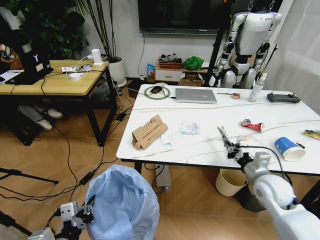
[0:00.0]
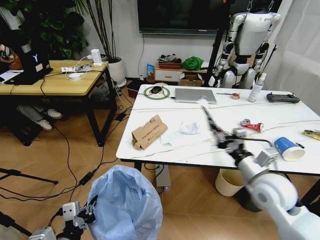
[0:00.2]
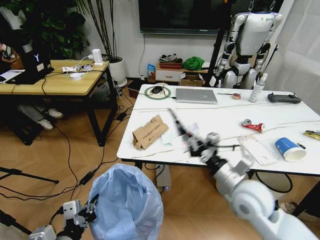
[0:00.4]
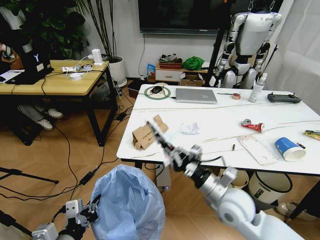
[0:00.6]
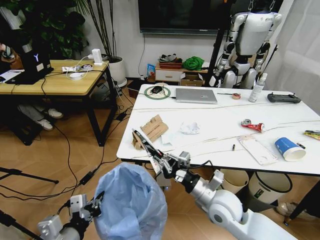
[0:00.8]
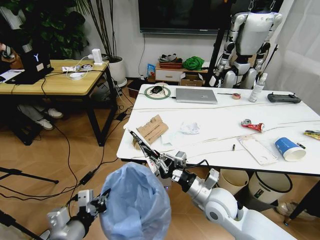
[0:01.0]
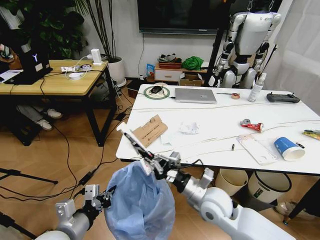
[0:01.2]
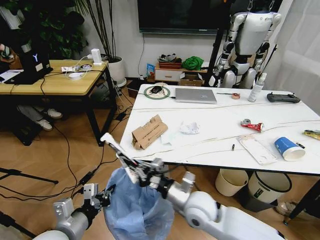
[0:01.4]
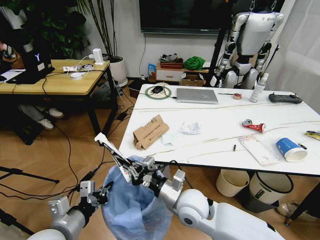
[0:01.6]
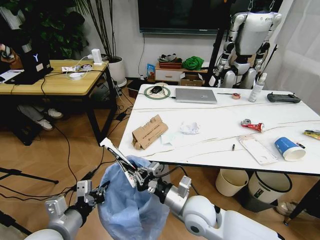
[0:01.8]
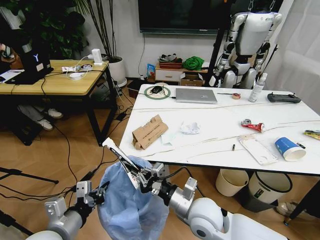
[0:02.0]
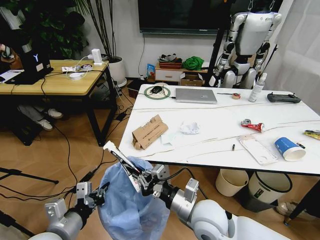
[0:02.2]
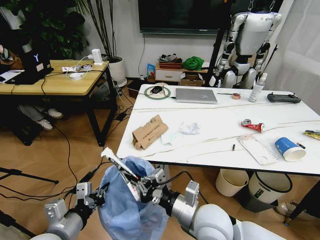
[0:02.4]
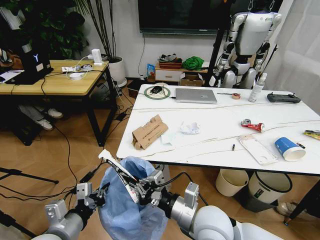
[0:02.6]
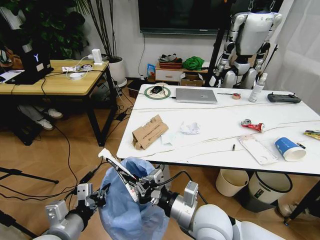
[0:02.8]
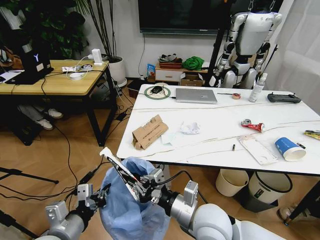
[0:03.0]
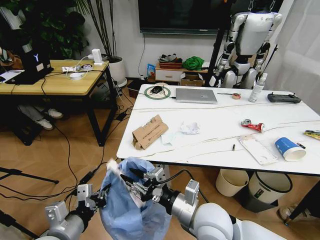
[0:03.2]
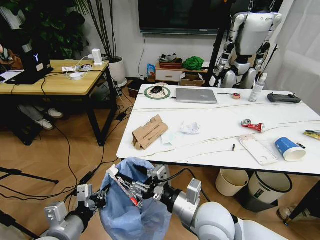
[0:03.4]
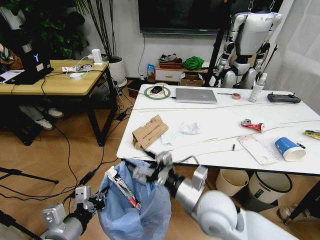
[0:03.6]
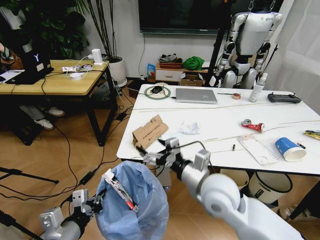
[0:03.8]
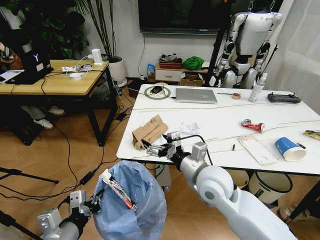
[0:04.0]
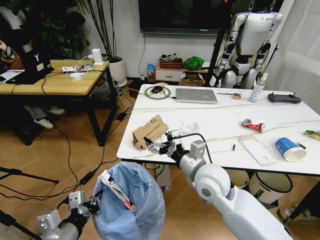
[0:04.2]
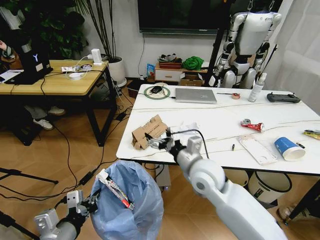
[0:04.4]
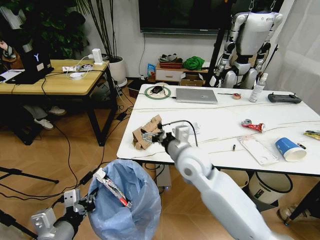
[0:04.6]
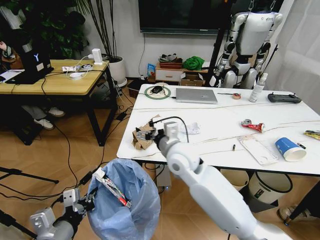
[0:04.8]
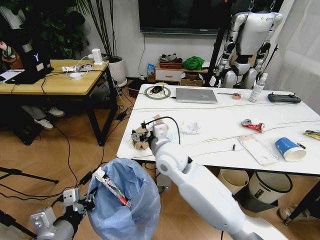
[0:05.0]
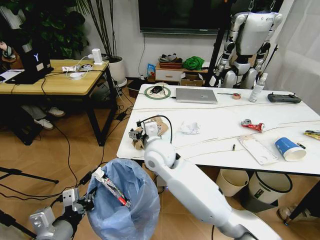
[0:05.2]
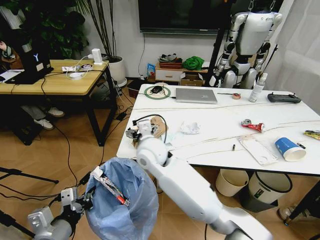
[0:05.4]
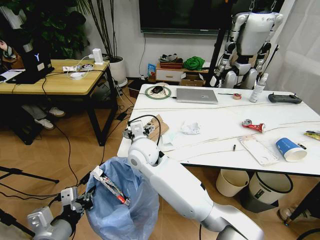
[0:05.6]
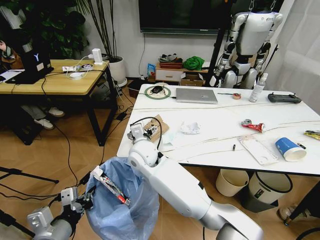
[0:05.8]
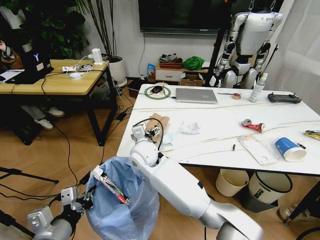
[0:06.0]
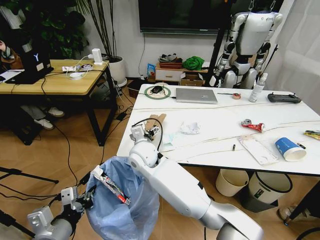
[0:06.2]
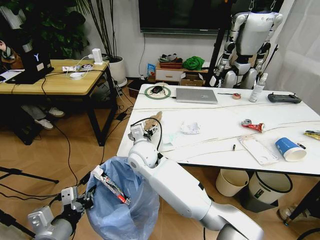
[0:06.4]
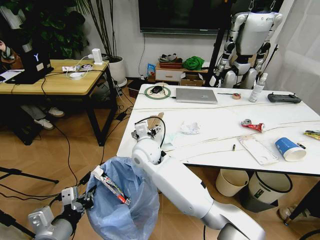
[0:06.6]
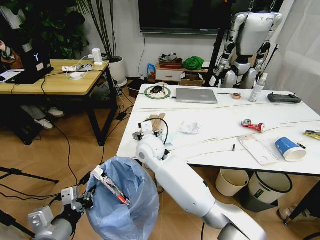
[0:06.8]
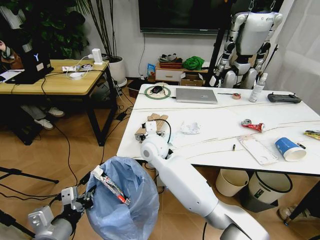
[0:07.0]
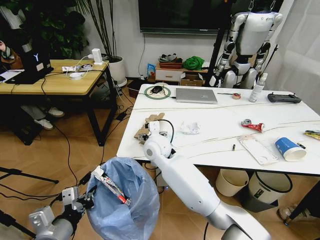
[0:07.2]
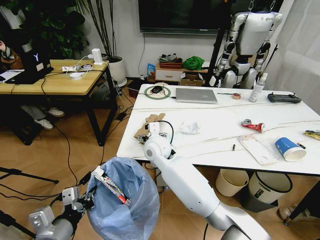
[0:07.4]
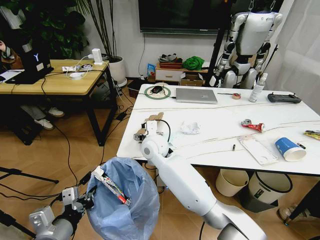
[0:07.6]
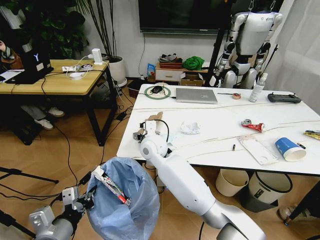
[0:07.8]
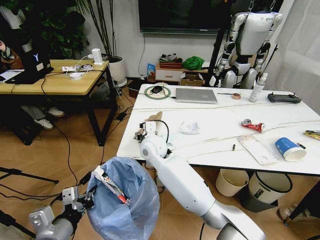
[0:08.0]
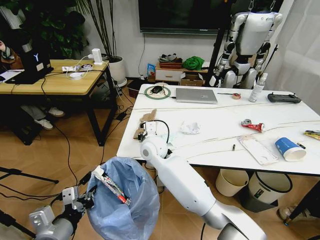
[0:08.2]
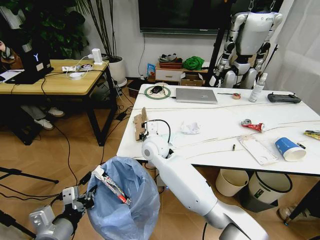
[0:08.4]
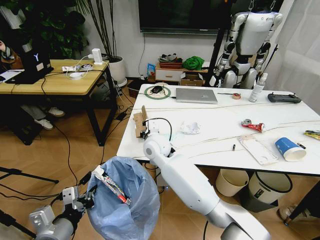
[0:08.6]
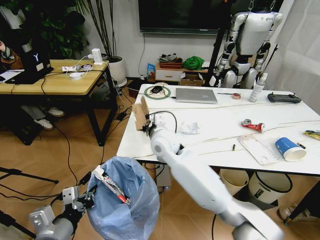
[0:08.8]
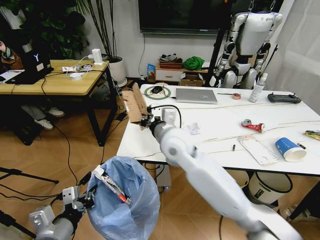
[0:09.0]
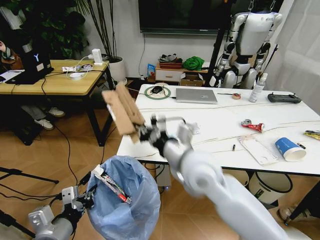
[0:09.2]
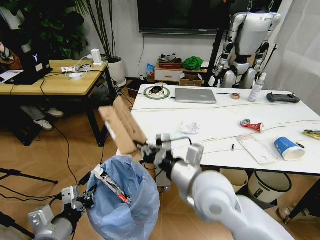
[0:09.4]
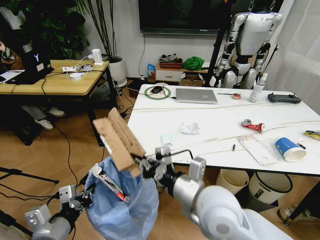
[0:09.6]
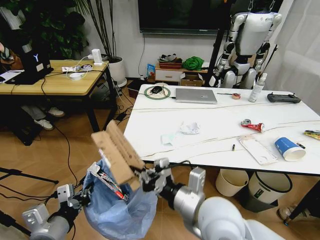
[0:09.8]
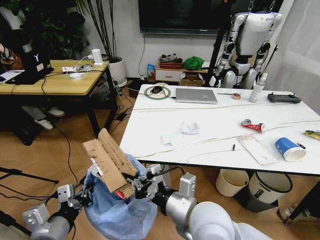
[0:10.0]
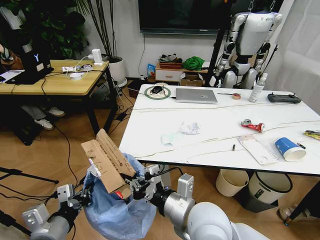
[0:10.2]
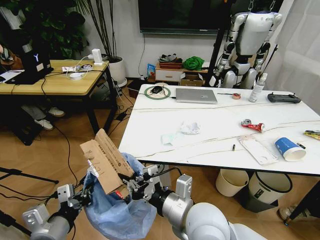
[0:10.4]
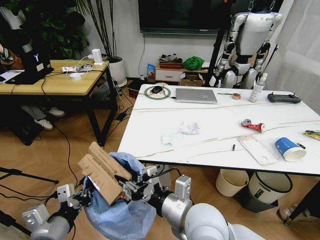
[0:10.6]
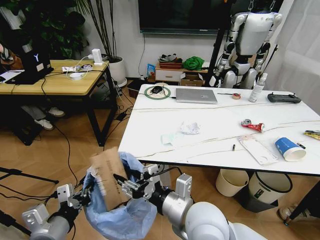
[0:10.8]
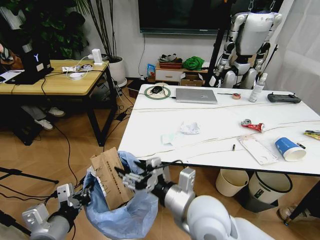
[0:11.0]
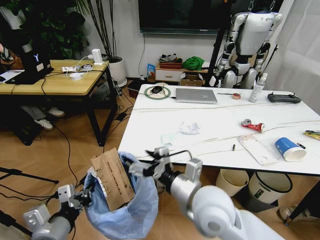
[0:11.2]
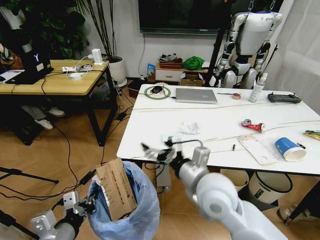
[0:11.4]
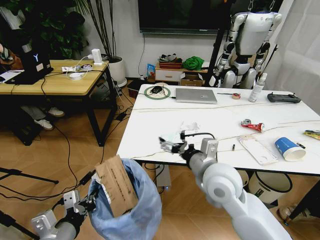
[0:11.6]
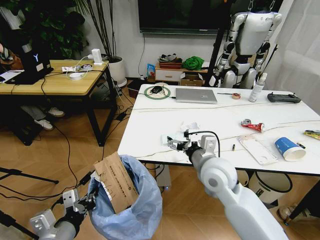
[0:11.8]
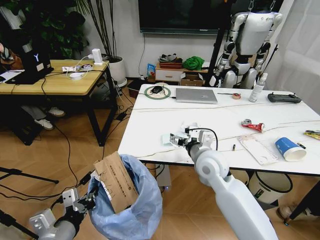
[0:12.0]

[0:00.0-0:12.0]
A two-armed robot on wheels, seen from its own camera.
Task of the whole recording: Pick up the trash bin and place the trash from the table into it.
0:00.0 to 0:01.6: The right gripper shifts roughly 25 cm to the left; the left gripper goes some 5 cm forward.
0:01.6 to 0:03.0: The right gripper is displaced backward by roughly 5 cm.
0:03.0 to 0:04.4: The right gripper heads forward, covering approximately 10 cm, and opens.
0:04.4 to 0:06.0: The right gripper is displaced to the left and forward by about 20 cm.
0:07.6 to 0:09.0: The right gripper is displaced upward, to the right and backward by approximately 15 cm, and closes.
0:09.0 to 0:10.4: The right gripper shifts roughly 20 cm backward.
0:10.4 to 0:12.0: The right gripper shifts approximately 15 cm forward, and opens.

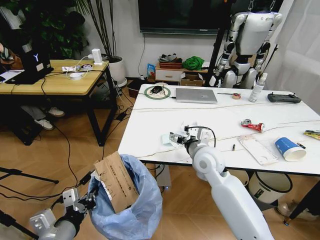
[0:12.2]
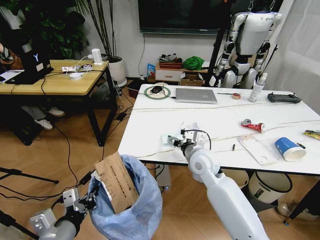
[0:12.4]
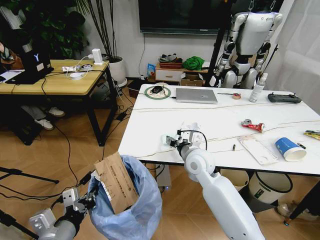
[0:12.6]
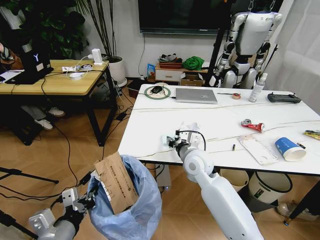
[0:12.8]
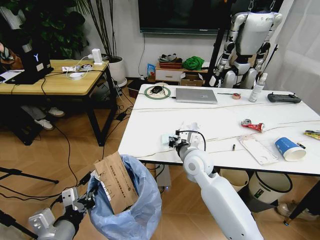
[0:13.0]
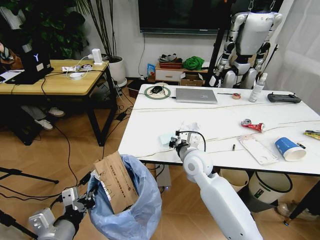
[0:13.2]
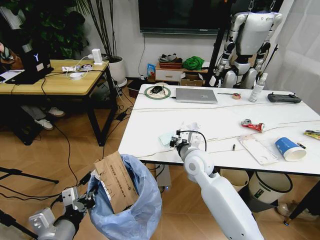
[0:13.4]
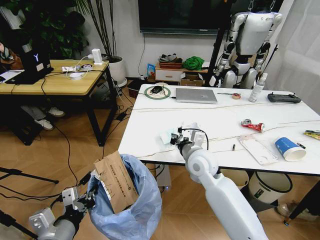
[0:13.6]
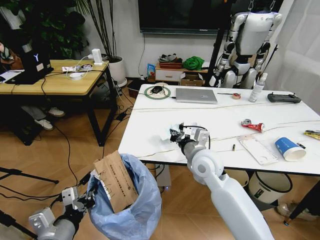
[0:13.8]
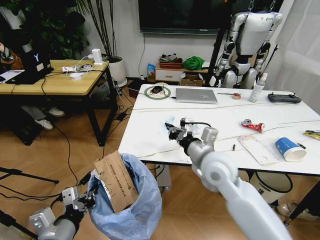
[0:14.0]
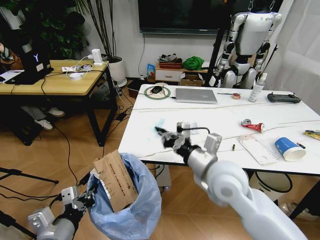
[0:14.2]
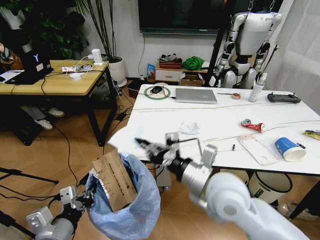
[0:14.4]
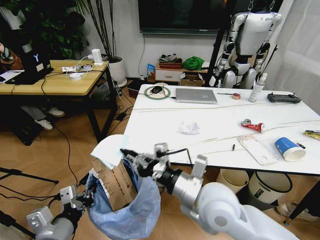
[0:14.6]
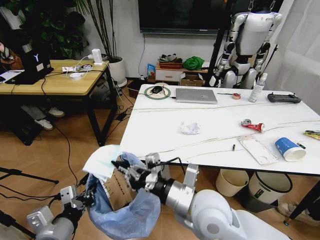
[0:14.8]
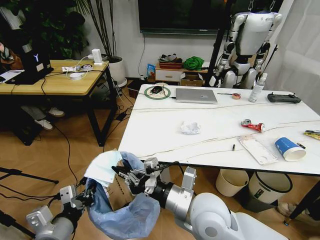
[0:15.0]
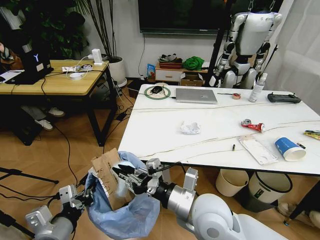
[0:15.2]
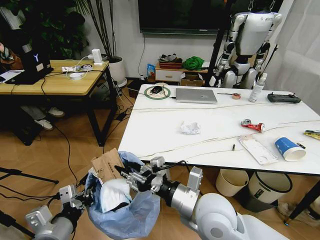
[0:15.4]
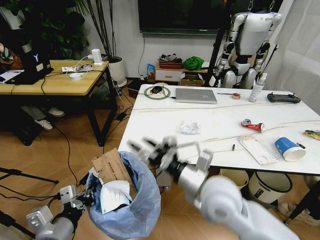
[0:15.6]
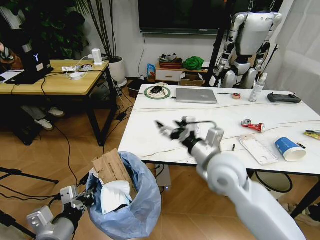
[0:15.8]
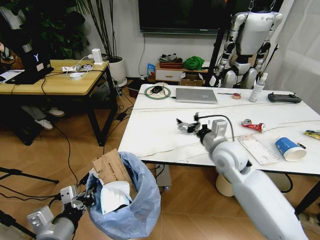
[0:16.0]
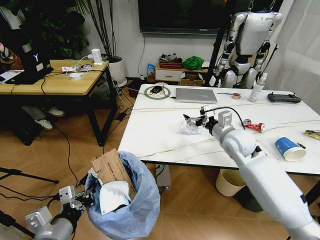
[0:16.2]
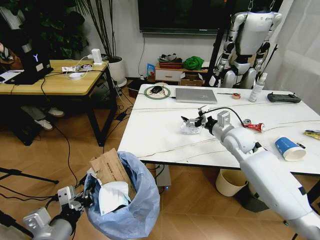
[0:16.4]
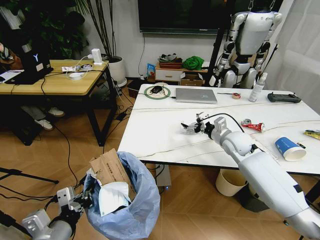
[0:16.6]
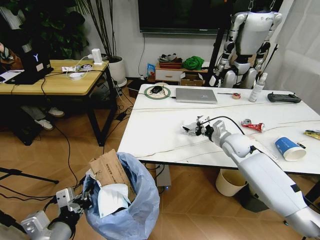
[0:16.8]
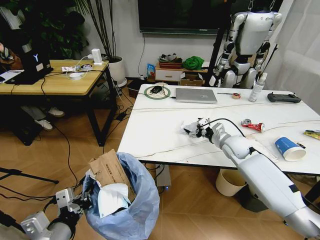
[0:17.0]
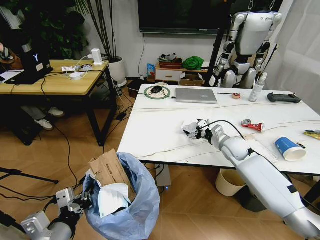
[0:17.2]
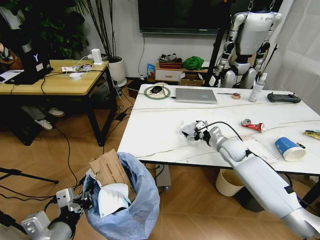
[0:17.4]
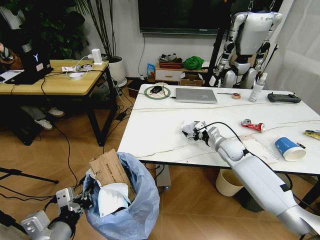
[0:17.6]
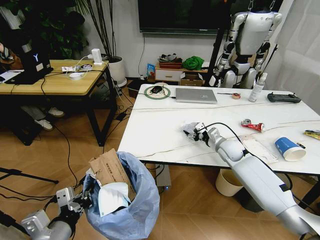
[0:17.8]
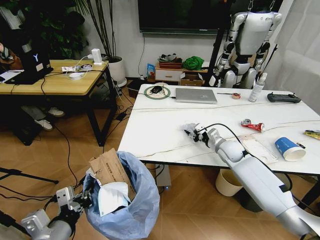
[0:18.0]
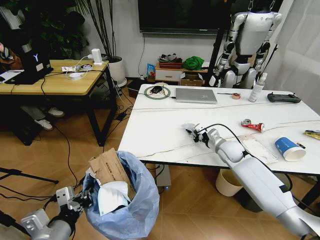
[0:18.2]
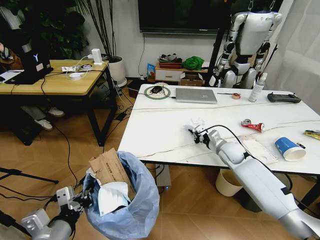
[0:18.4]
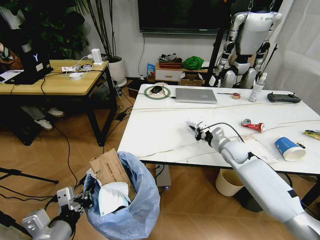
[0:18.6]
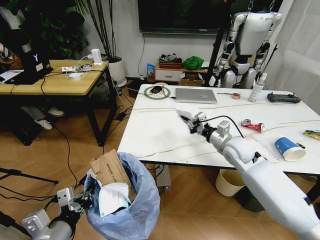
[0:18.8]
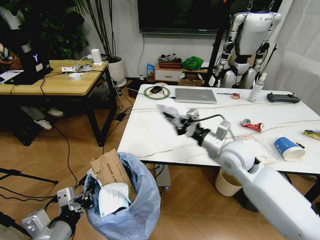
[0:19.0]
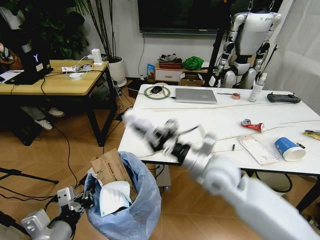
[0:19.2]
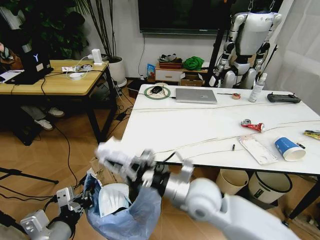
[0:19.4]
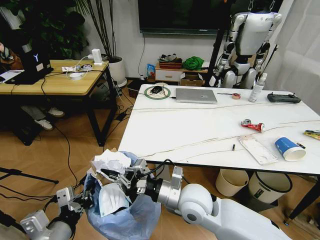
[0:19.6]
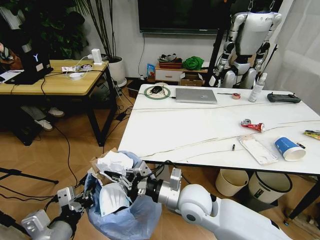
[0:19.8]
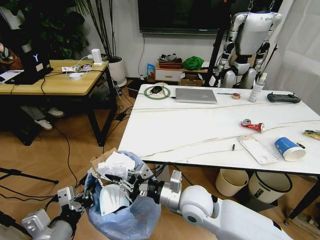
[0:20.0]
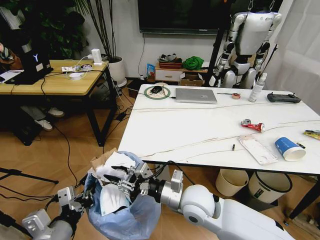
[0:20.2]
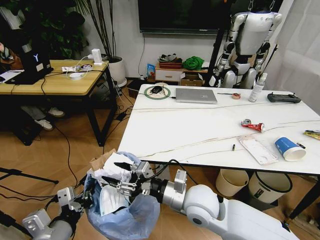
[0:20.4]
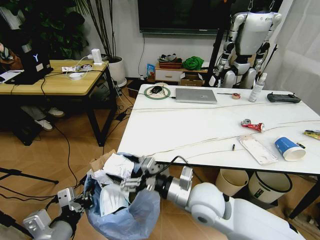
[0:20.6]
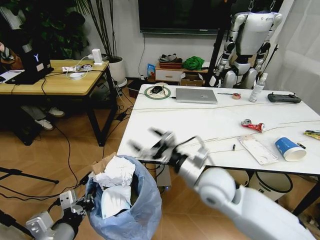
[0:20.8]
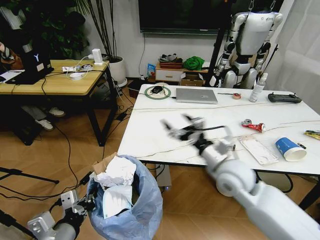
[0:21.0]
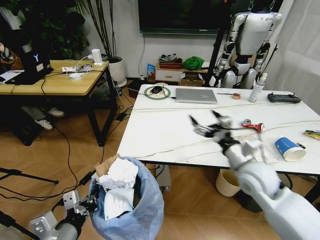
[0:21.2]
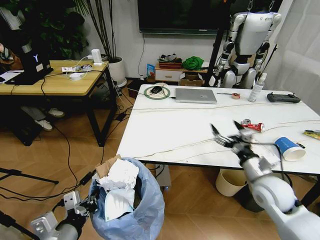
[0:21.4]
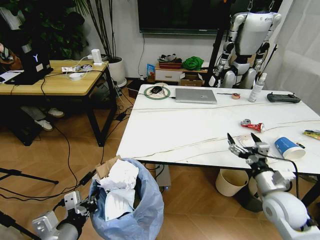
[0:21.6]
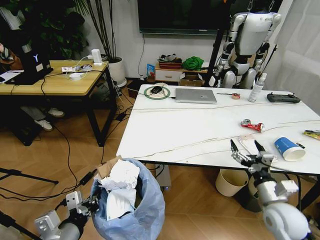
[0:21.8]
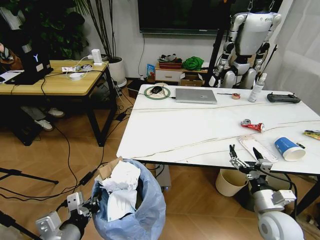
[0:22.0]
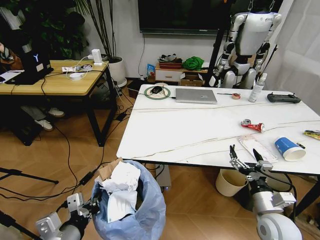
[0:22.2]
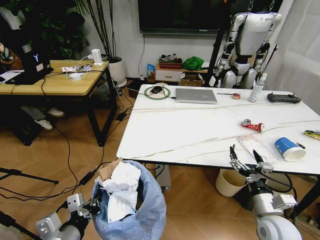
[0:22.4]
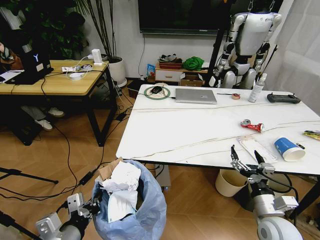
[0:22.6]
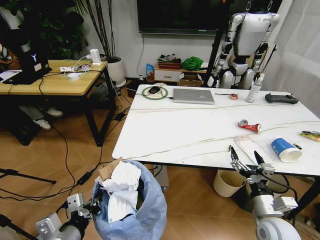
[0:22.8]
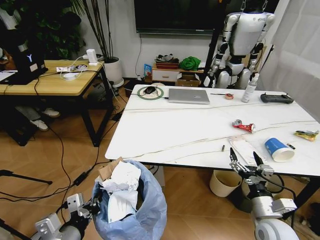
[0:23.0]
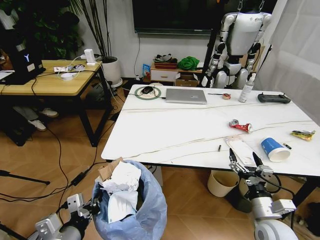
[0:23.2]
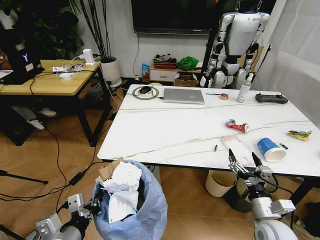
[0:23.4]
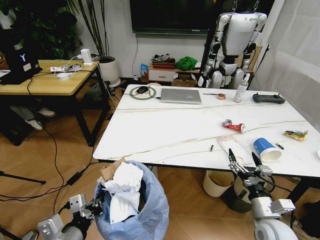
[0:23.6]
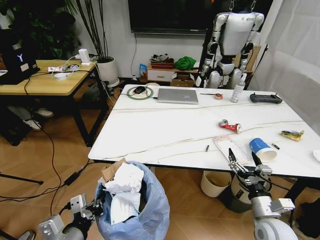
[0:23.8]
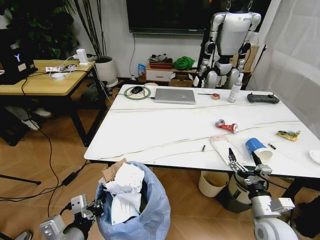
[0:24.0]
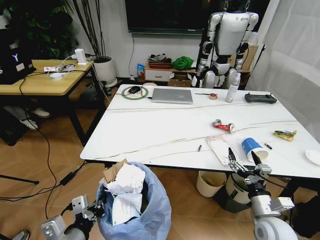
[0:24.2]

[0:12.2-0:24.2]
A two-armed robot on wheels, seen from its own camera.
Task of the whole recording: Pick up the trash bin and place the trash from the table into it.
0:12.2 to 0:13.8: The right gripper closes.
0:13.8 to 0:15.2: The right gripper is displaced backward by about 15 cm.
0:15.2 to 0:16.6: The right gripper shifts approximately 30 cm forward and to the right, and opens its fingers.
0:16.6 to 0:18.2: The right gripper goes some 5 cm downward, and closes its fingers.
0:18.2 to 0:19.8: The right gripper heads backward and to the left, covering roughly 30 cm.
0:19.8 to 0:21.2: The right gripper shifts some 20 cm to the right, and opens its fingers.
0:21.2 to 0:22.6: The right gripper shifts about 15 cm downward, backward and to the right.
